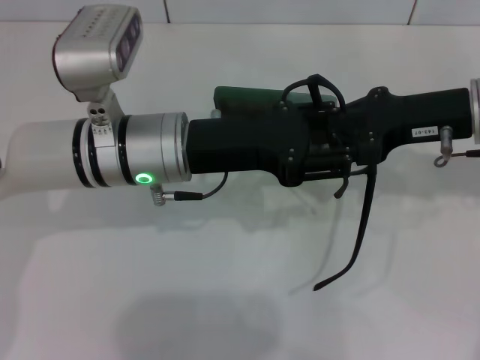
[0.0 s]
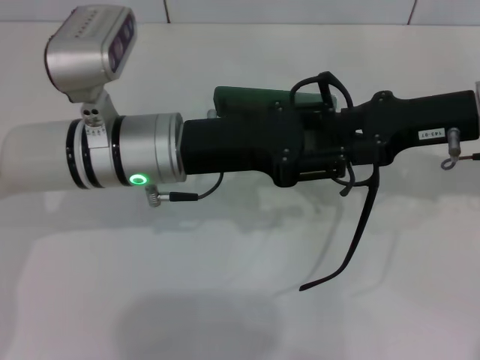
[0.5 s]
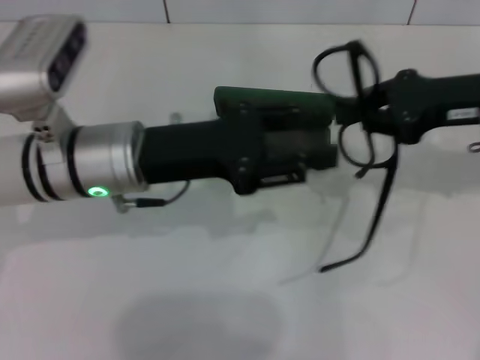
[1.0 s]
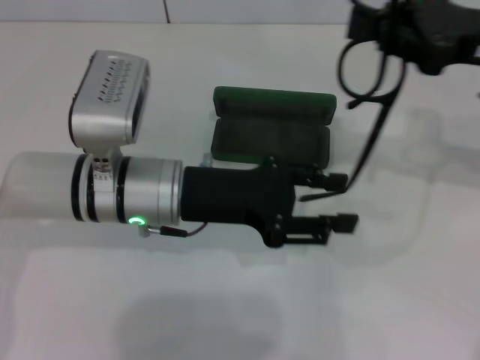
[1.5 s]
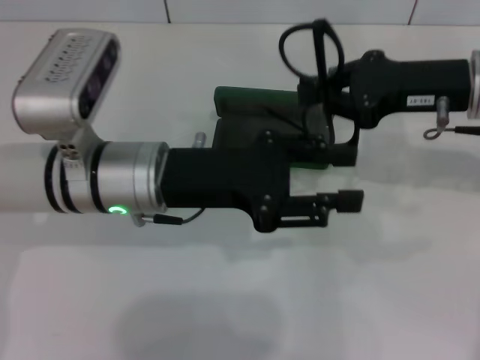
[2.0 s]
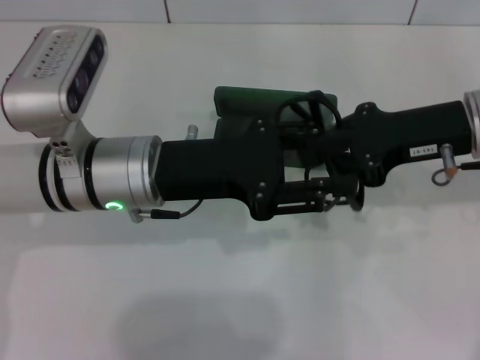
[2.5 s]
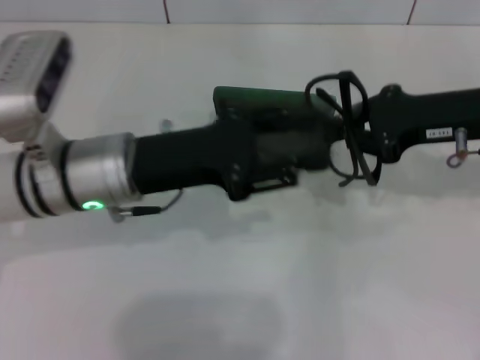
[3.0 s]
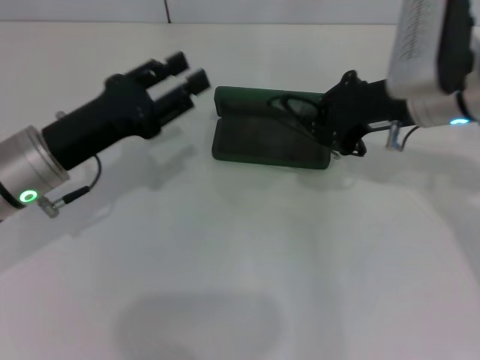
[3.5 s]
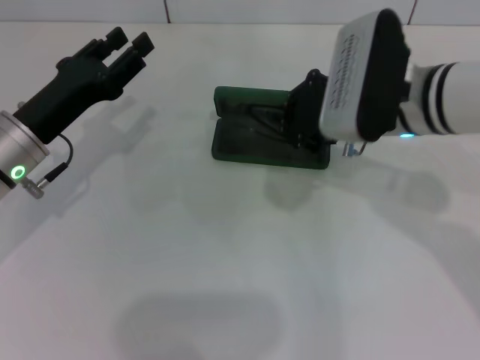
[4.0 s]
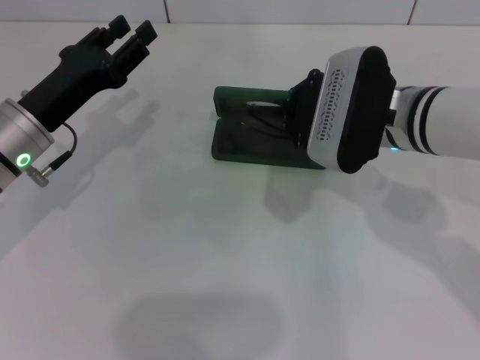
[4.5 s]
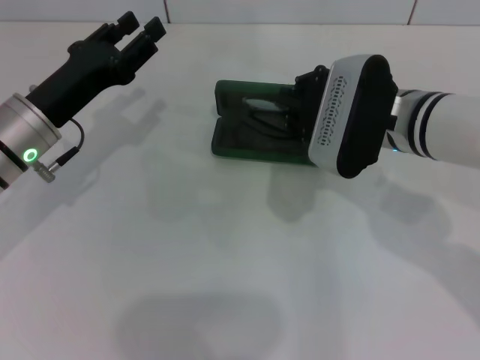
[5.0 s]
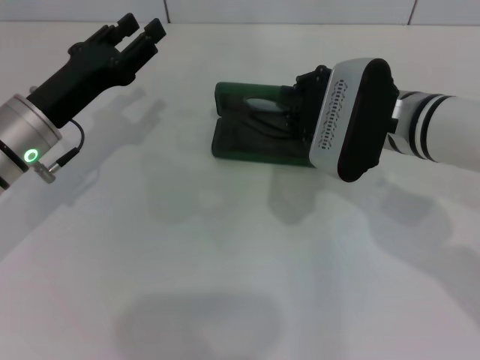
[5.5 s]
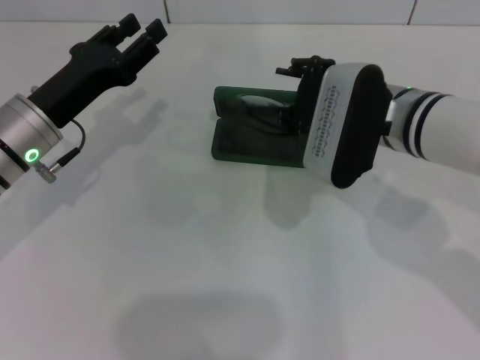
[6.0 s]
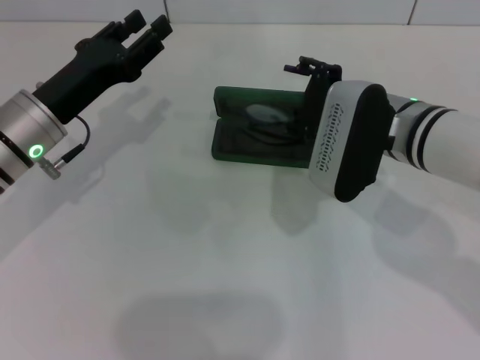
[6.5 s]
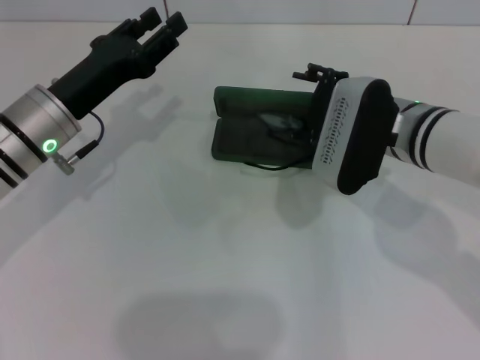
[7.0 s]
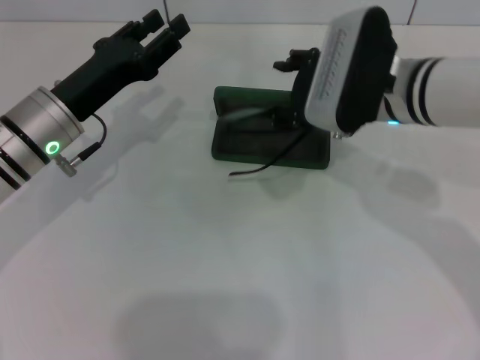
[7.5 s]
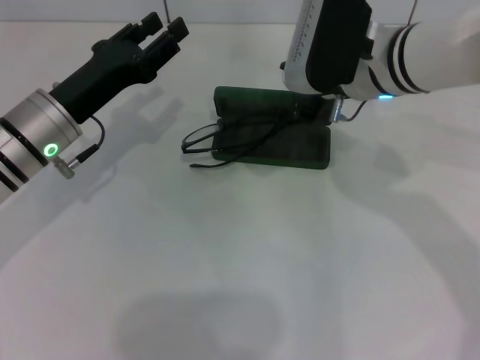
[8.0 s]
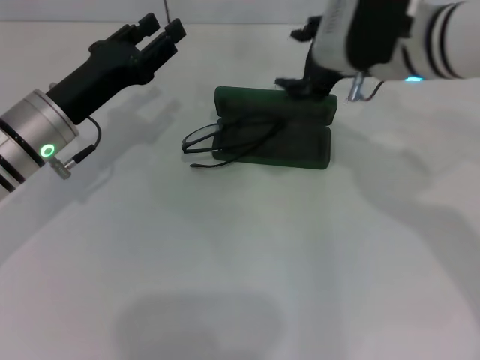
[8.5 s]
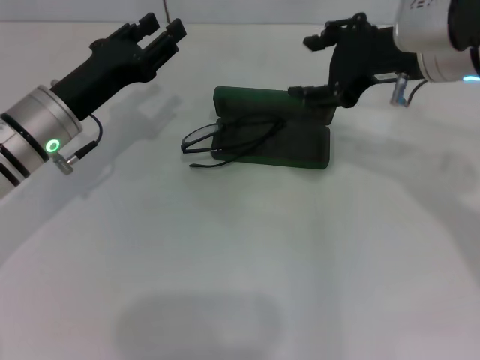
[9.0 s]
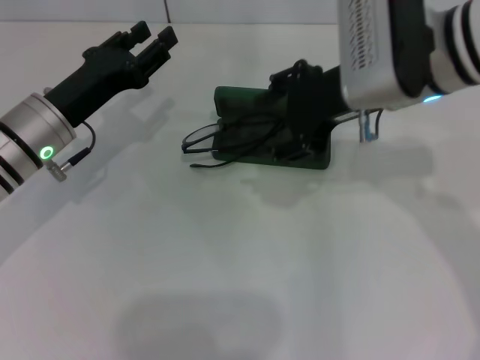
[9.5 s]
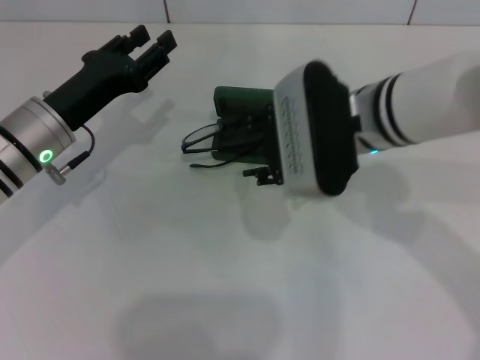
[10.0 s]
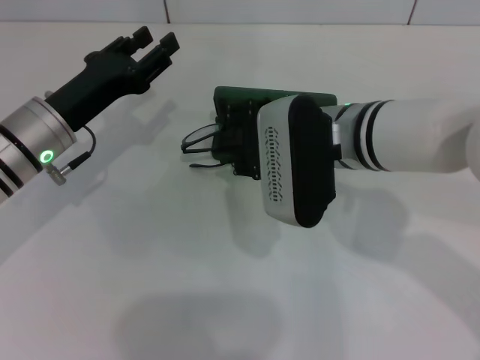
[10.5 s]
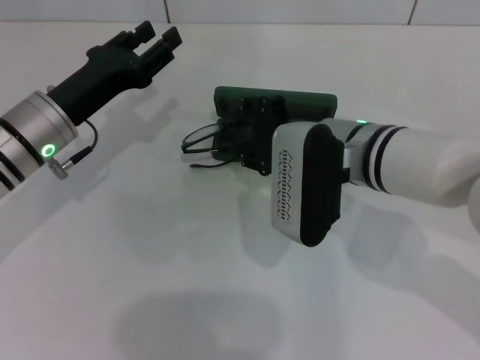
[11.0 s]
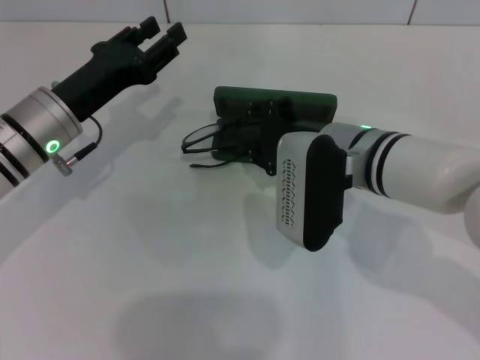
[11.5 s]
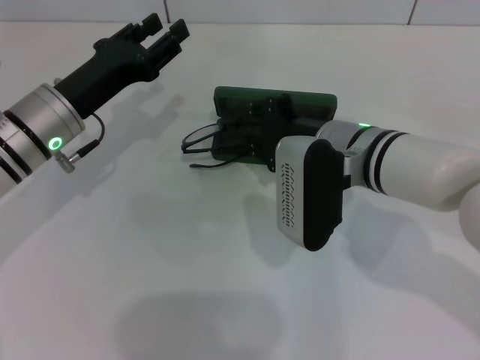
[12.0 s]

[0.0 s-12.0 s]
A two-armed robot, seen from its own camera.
Step, 0.0 to 2.5 s: Fold the frame with your left hand.
2.0 to 4.0 s: The two grippers go approximately 10 cm to the left.
4.0 to 6.0 s: The right gripper opens its fingers.
6.0 to 8.0 s: The right gripper ends up some 5 cm from where it was, and opens.
8.0 to 10.0 s: The right gripper moves approximately 5 cm to the right and comes back.
10.0 to 12.0 s: The right gripper shifts about 5 cm downward.

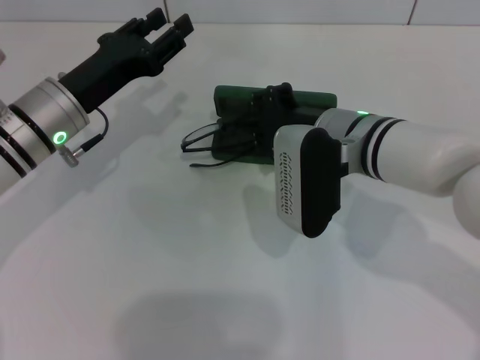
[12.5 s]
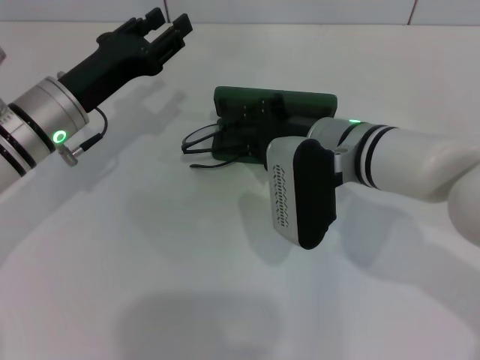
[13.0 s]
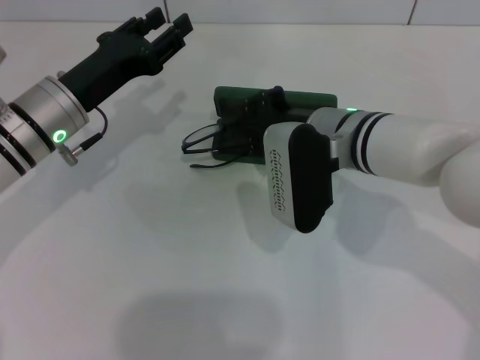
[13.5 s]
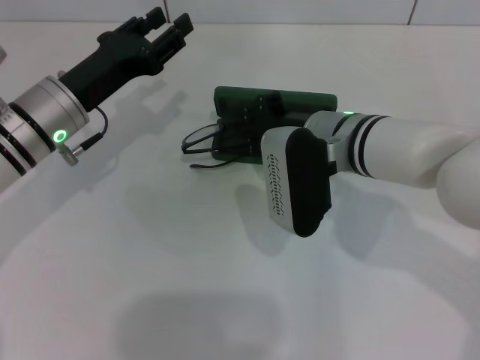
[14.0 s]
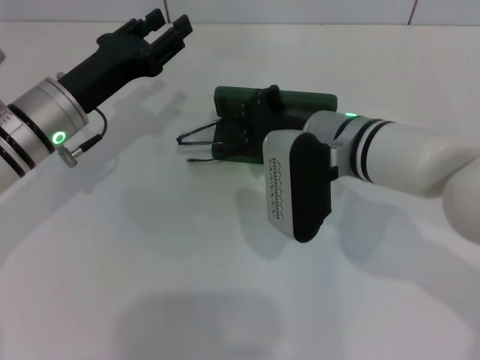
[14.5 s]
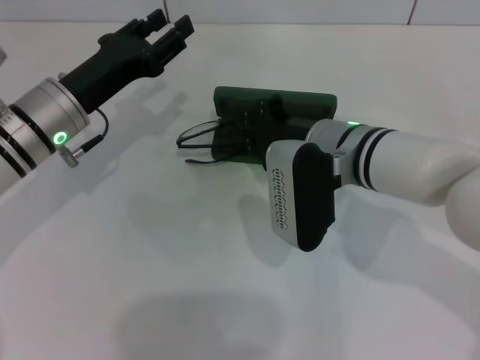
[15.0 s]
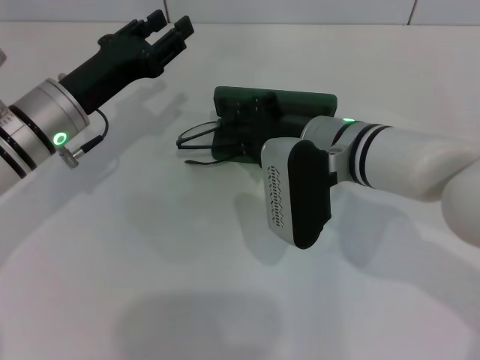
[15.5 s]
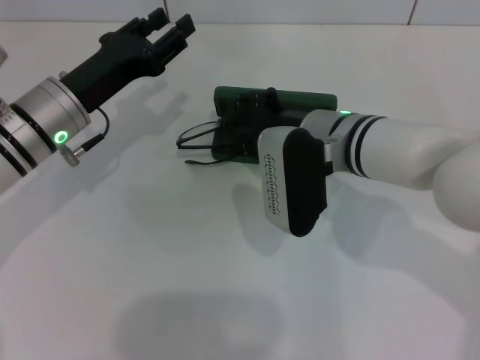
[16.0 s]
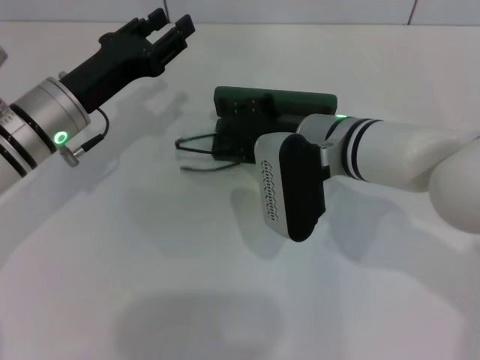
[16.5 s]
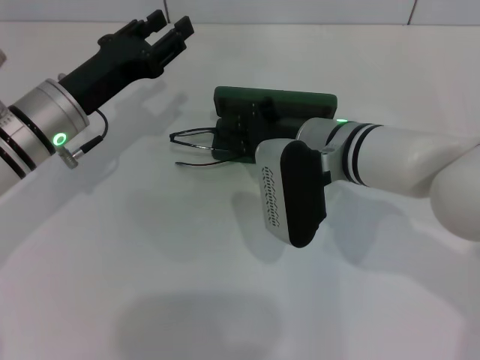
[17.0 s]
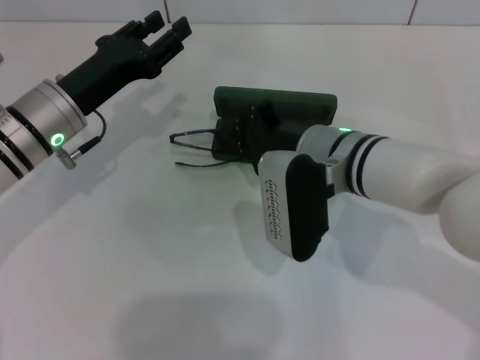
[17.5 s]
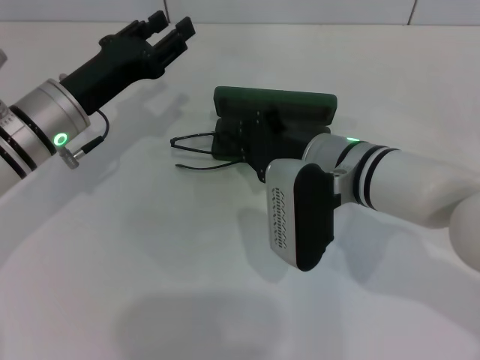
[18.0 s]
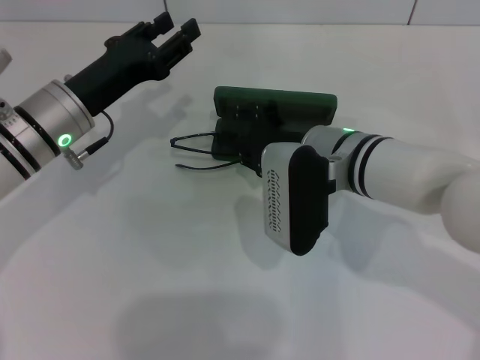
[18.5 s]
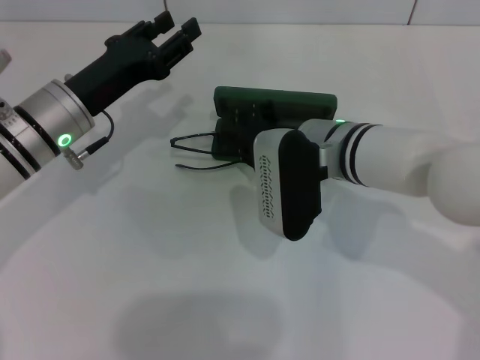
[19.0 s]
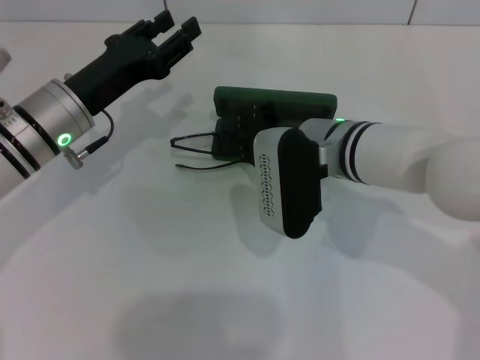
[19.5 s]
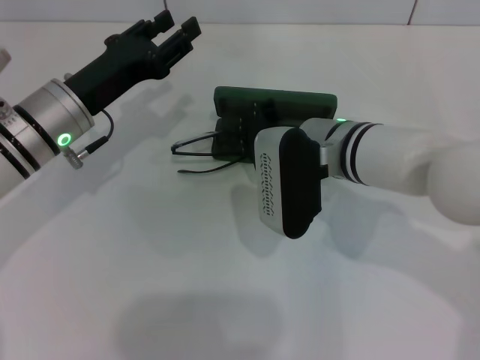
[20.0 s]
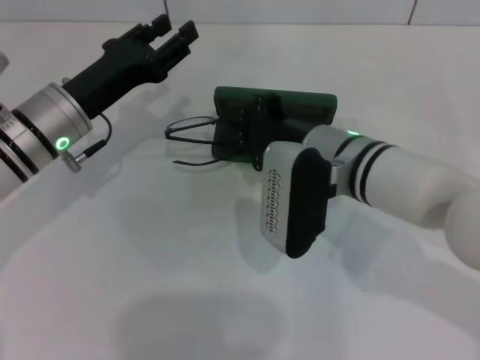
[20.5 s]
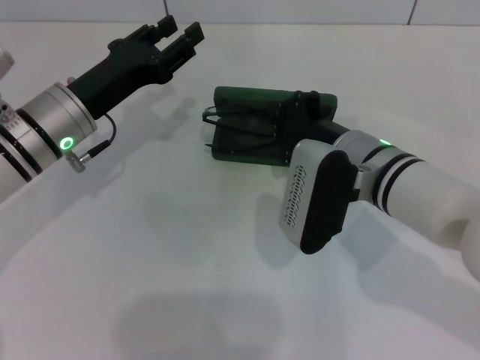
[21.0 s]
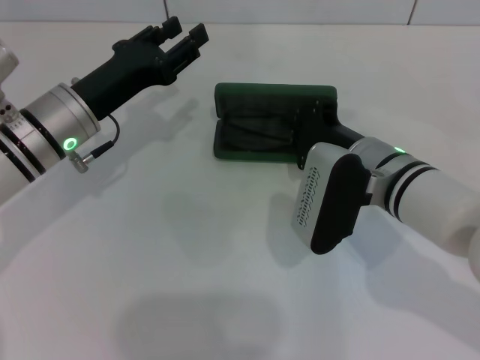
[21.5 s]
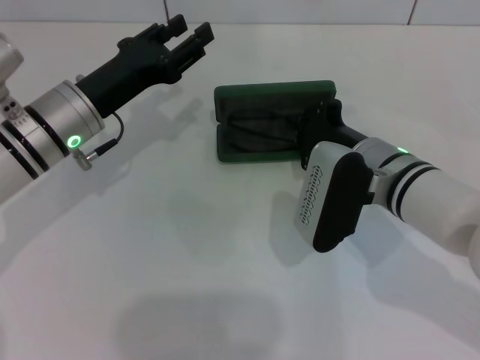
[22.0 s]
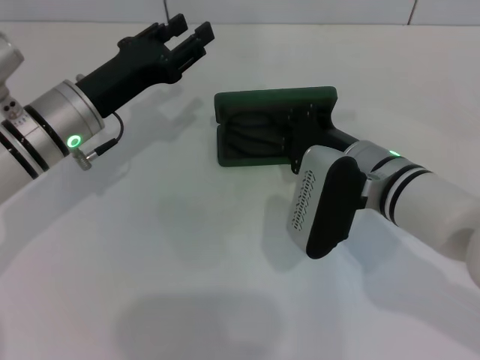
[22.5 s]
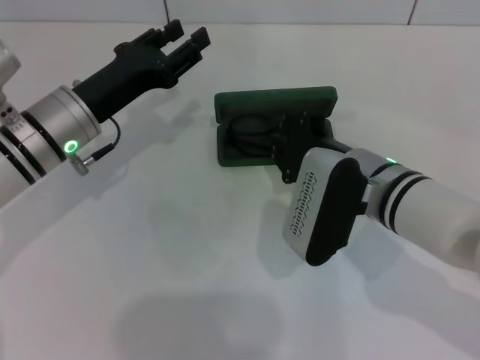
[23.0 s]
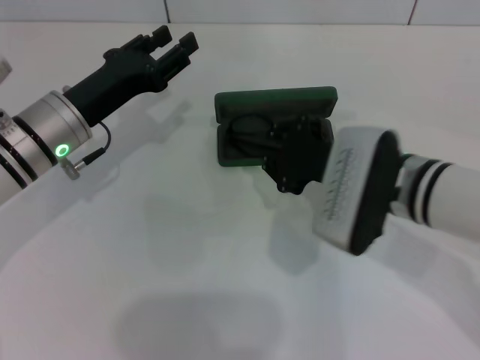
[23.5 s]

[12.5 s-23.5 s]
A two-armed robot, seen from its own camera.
Step, 12.5 to 23.0 s: Put the glasses into the case with your right hand.
12.5 to 14.5 s: Neither gripper changes place.
14.5 to 16.0 s: The right gripper opens its fingers.
16.0 to 18.0 s: The right gripper closes.
18.0 to 20.0 s: The right gripper opens, then closes again.
20.0 to 21.5 s: The right gripper moves roughly 5 cm.
21.5 to 23.5 s: The grippers make only small movements.

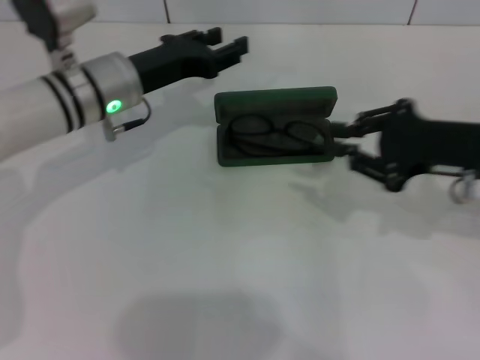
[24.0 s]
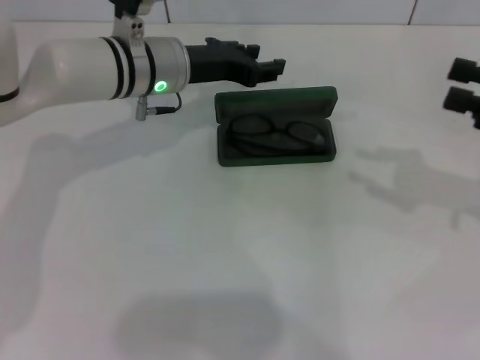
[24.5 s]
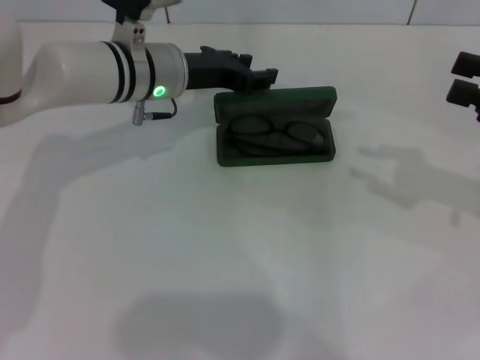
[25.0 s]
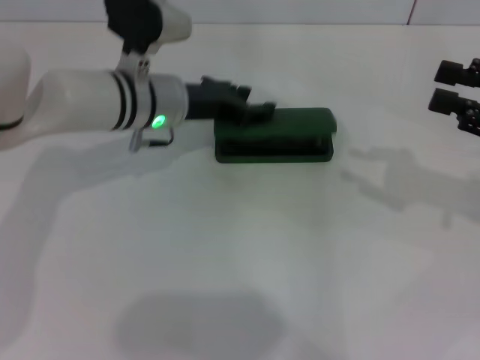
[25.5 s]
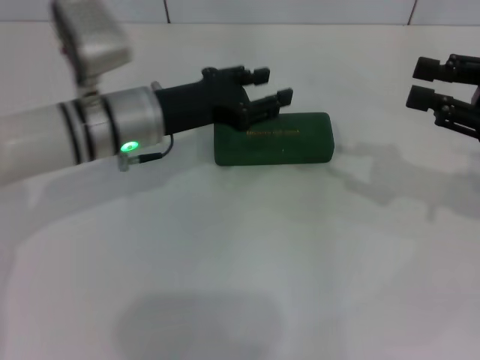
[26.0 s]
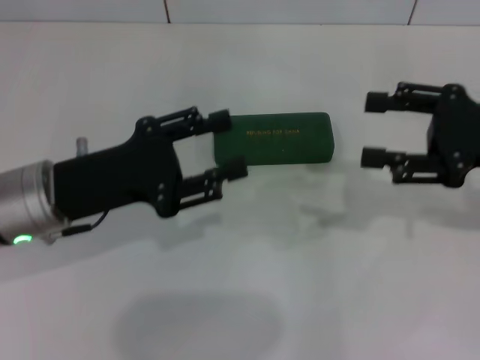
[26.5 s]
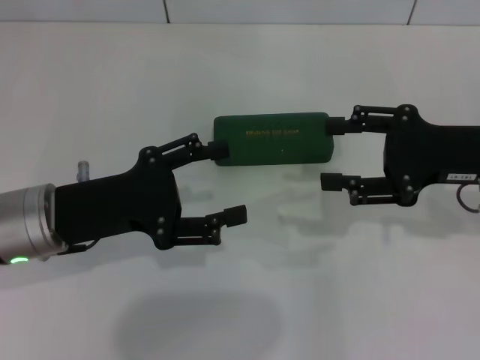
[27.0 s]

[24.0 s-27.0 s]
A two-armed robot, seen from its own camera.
Step, 24.0 to 25.5 s: Close the glasses case with your left hand.
24.0 to 25.5 s: The right gripper shifts roughly 10 cm to the right.
25.5 to 27.0 s: The right gripper heads to the left, covering roughly 10 cm, and opens up. Meanwhile the left gripper is displaced backward and to the left by approximately 15 cm.
